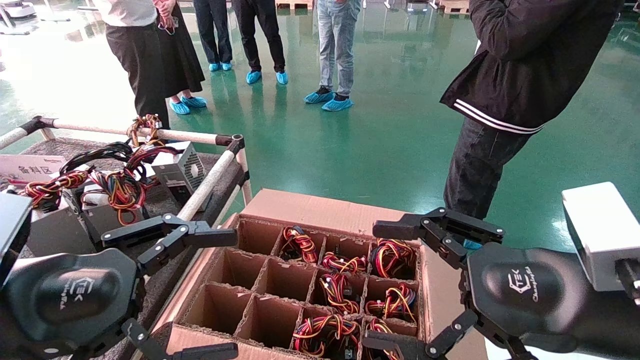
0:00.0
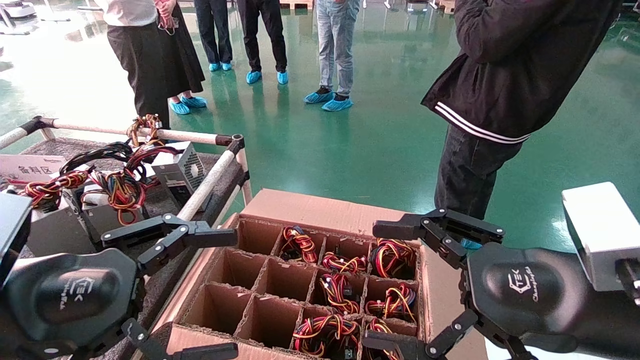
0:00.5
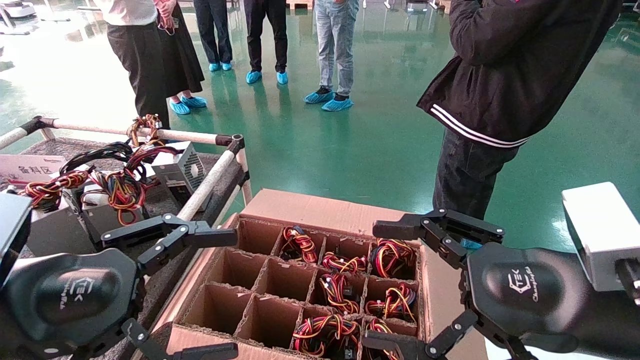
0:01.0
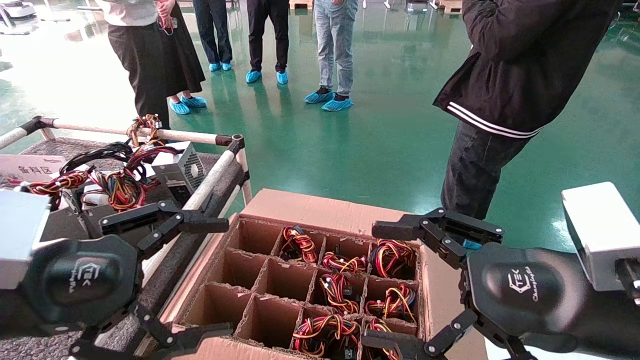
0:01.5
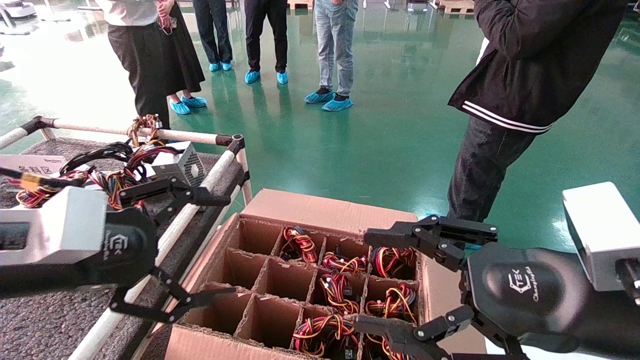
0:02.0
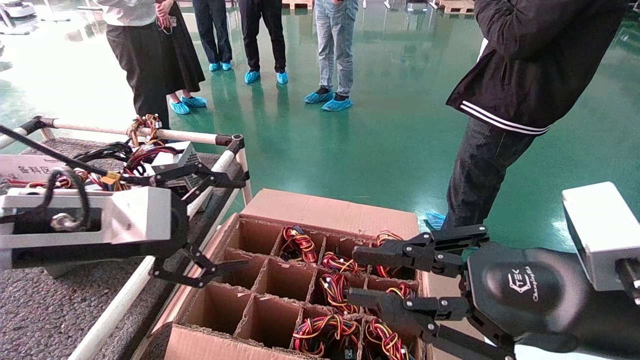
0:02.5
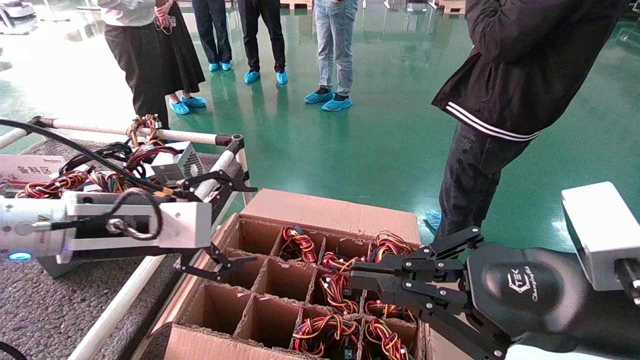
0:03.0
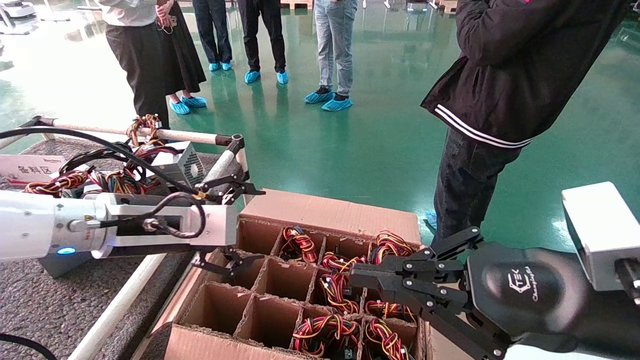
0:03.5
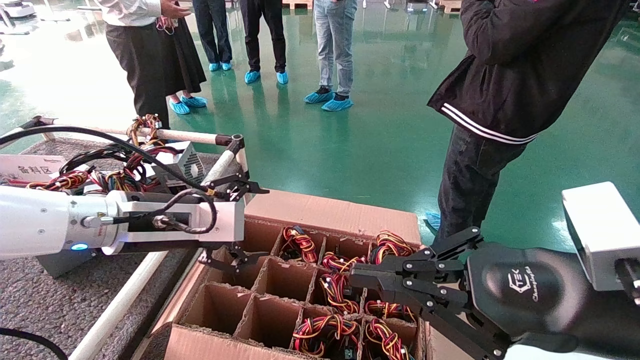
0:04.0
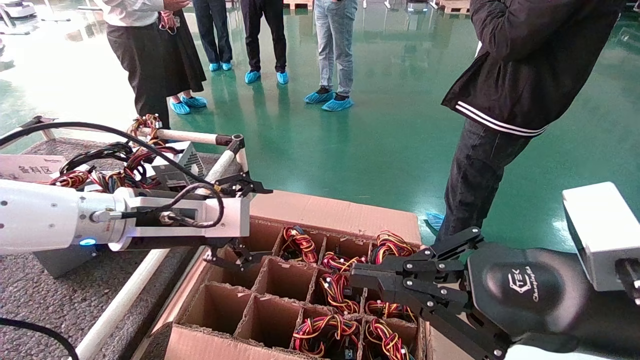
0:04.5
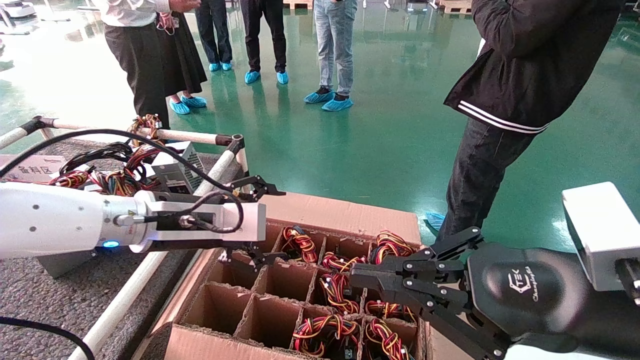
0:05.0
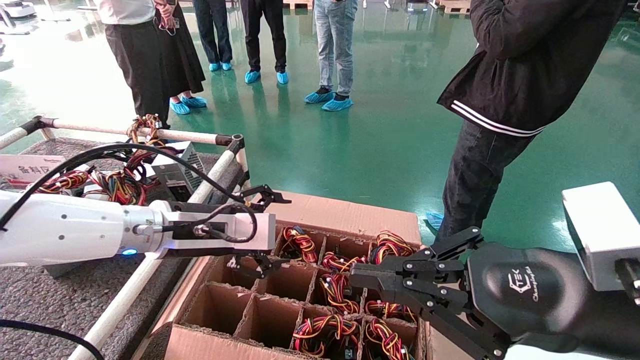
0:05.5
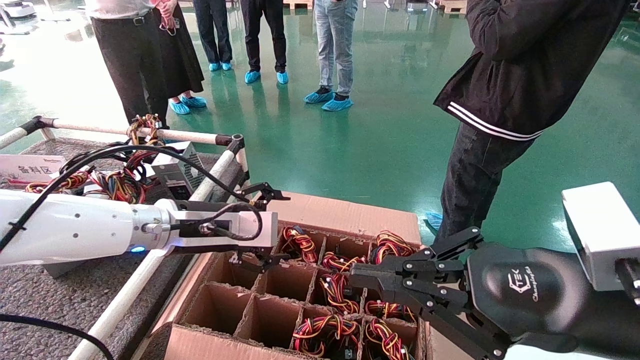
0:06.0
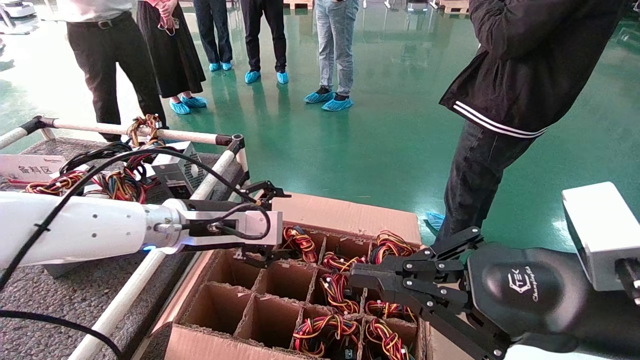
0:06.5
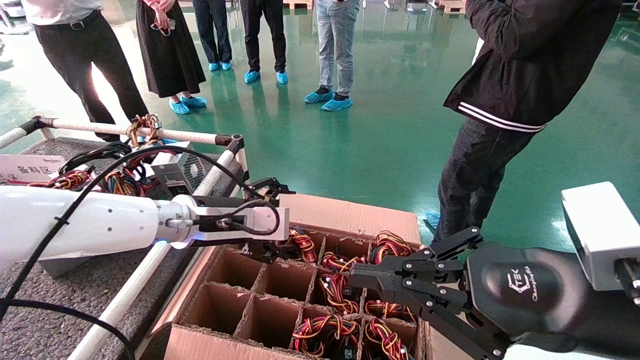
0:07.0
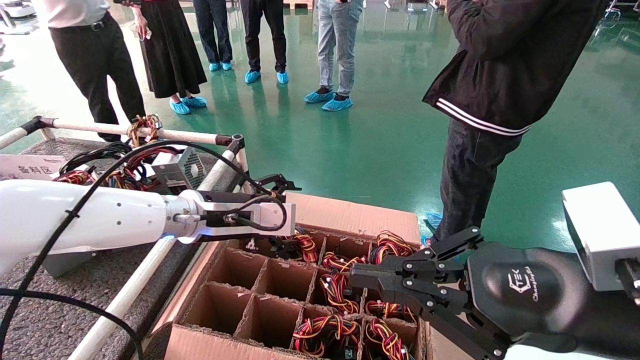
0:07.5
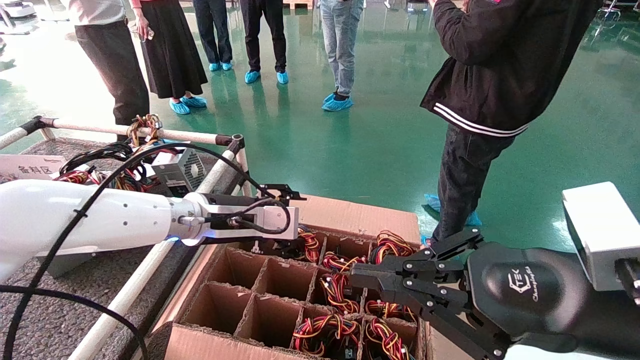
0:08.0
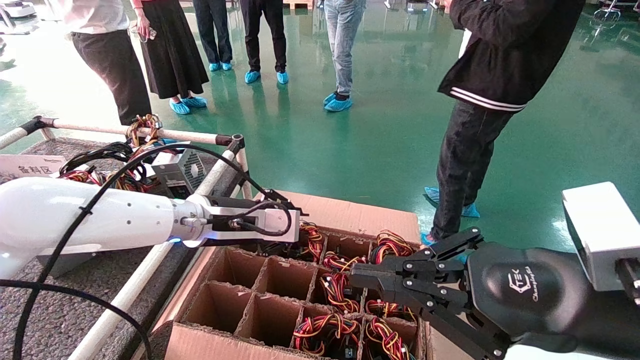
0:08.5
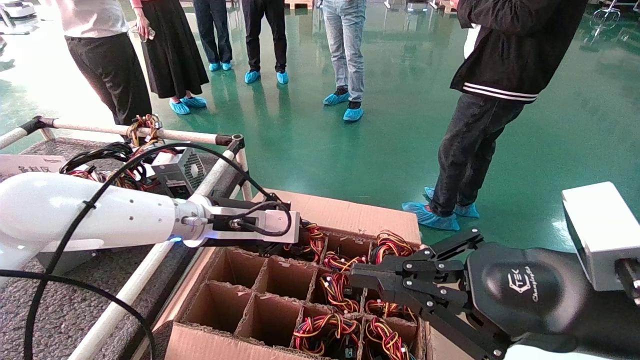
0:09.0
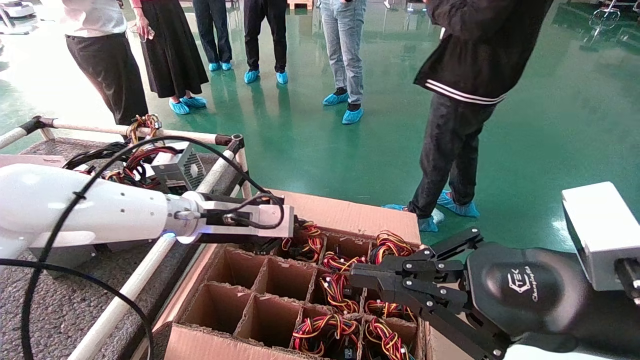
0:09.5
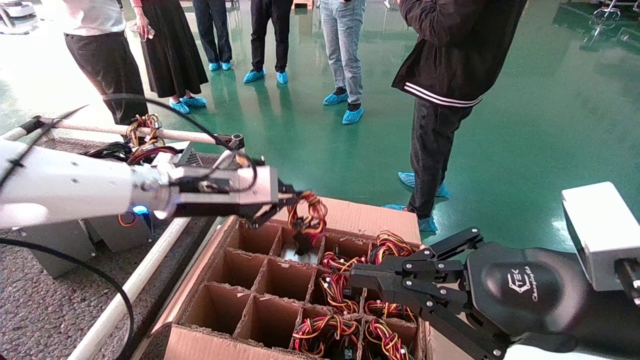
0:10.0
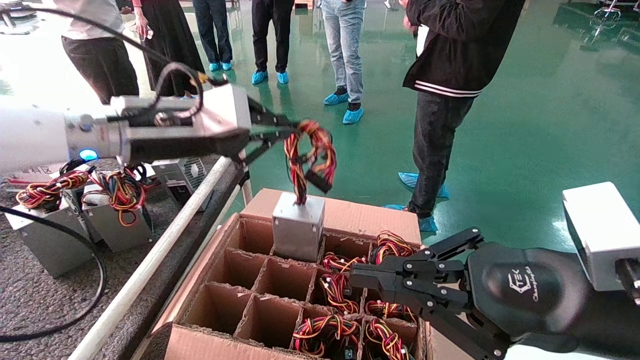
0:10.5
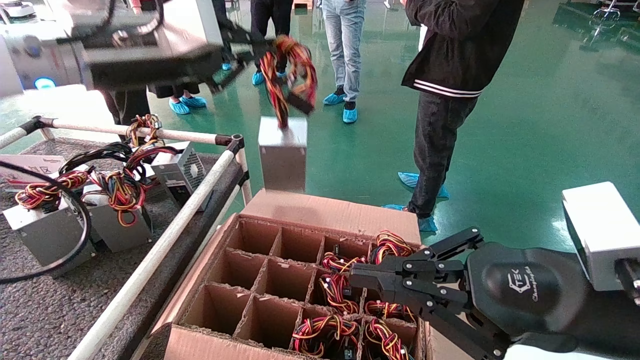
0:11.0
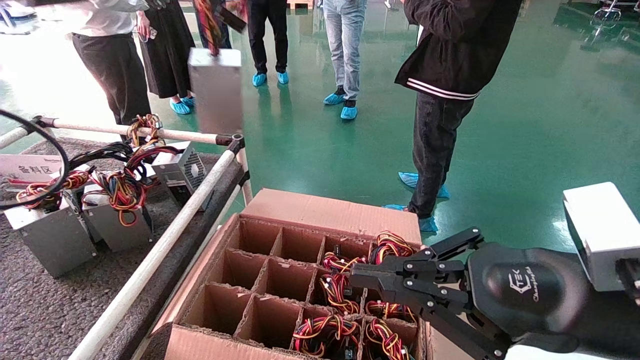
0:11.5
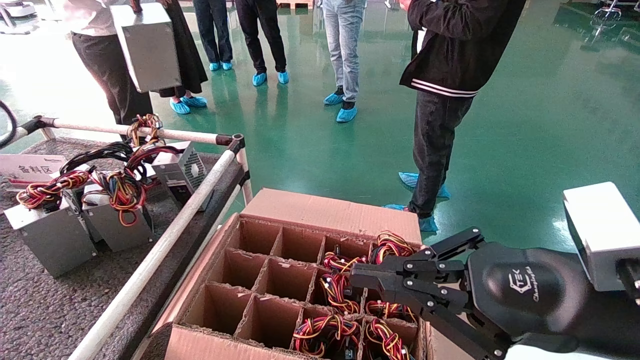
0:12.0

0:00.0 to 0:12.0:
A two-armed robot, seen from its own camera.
Step, 0:02.0 to 0:09.0: Grab and lift the power supply from the large box.
0:00.0 to 0:02.0: The left gripper changes place by some 5 cm.
0:02.0 to 0:04.0: The right gripper closes up. Meanwhile the left gripper travels forward and to the right by roughly 10 cm.
0:04.0 to 0:06.0: The left gripper changes place by about 5 cm.
0:06.0 to 0:08.0: There are only small adjustments of the grippers.
0:08.0 to 0:10.0: The left gripper goes some 5 cm upward, and closes up.
0:10.0 to 0:12.0: The left gripper shifts about 30 cm upward and to the left.

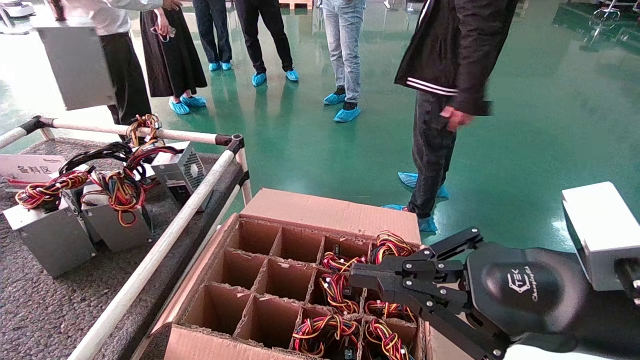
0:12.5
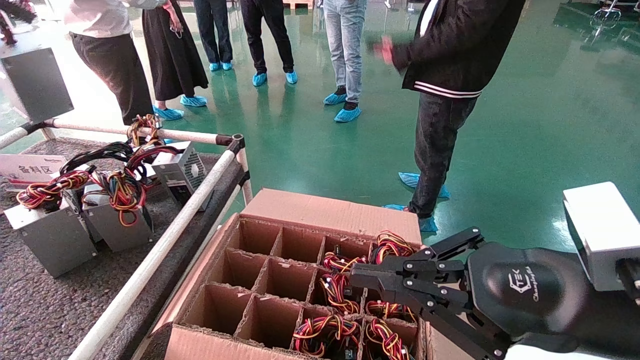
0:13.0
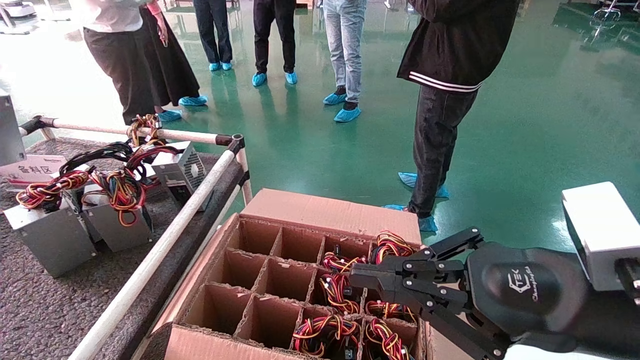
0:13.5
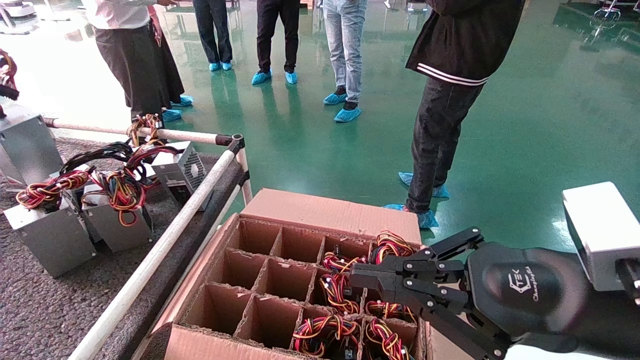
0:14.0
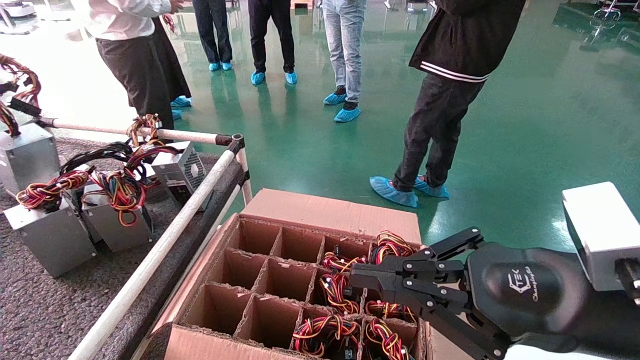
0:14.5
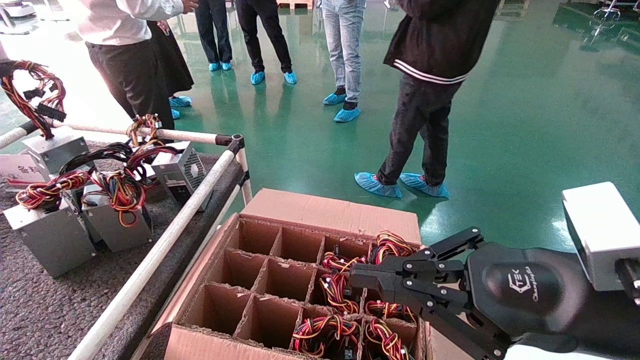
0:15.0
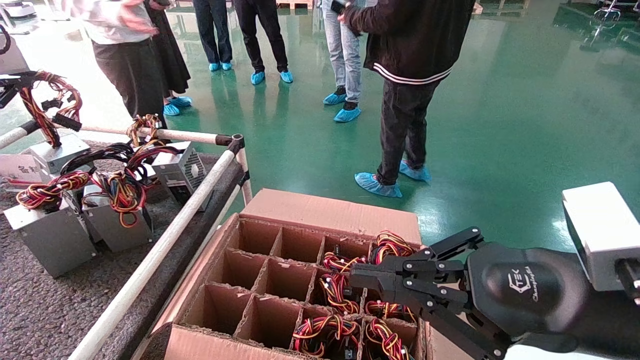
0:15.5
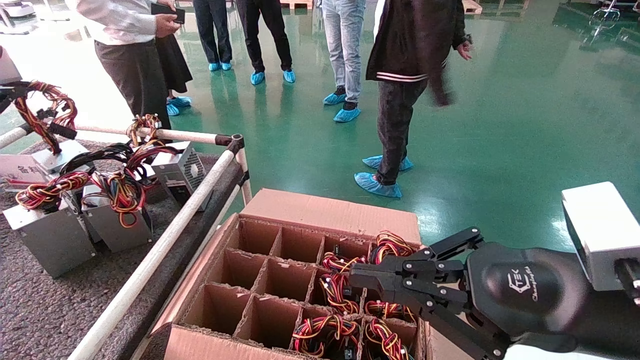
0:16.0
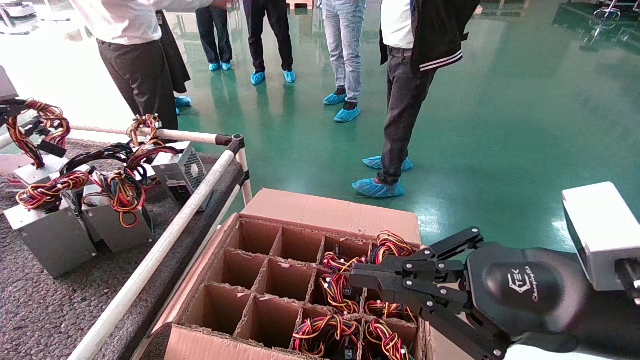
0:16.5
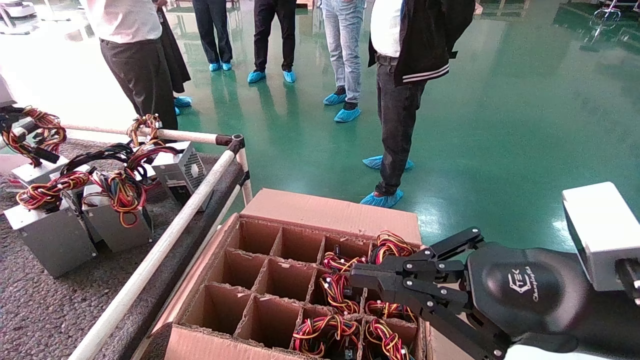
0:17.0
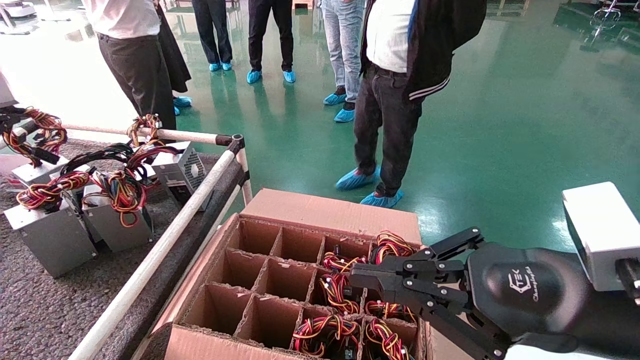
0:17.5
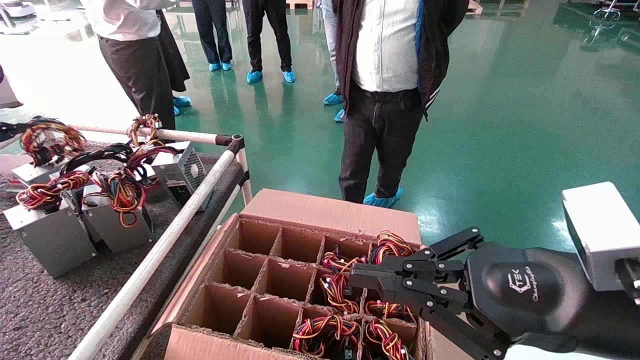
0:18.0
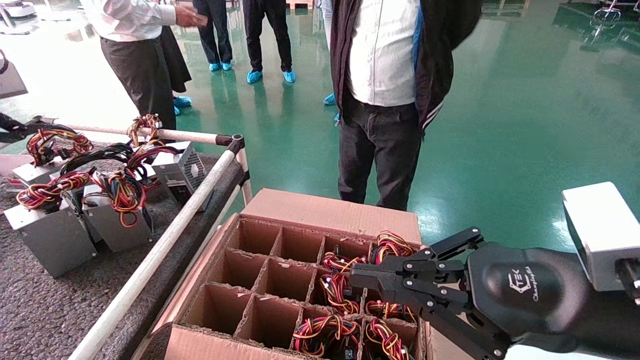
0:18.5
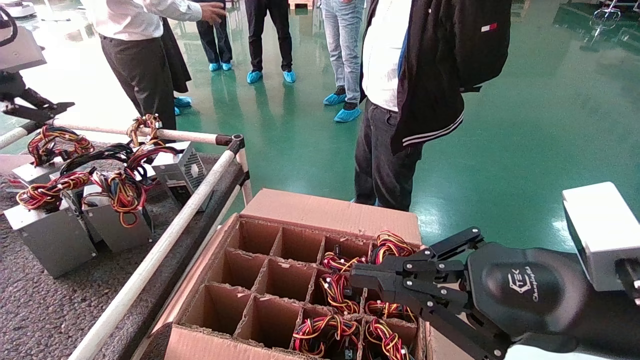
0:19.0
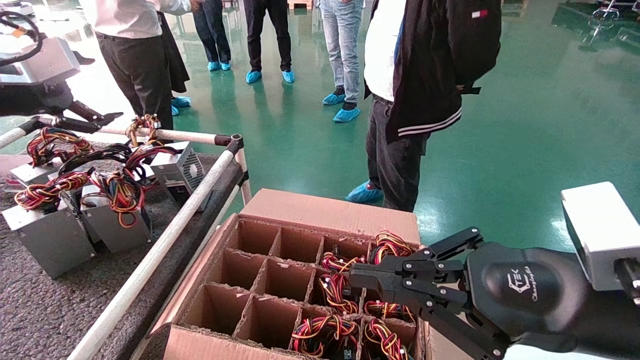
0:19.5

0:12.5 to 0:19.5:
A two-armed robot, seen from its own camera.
Step, 0:12.5 to 0:18.0: Place the power supply on the operating table.
0:12.5 to 0:14.5: The left gripper travels downward and to the left by about 15 cm.
0:14.5 to 0:16.0: The grippers make only small movements.
0:16.0 to 0:17.5: The grippers move only a little.
0:17.5 to 0:19.5: The left gripper goes roughly 10 cm to the right, and opens up.
